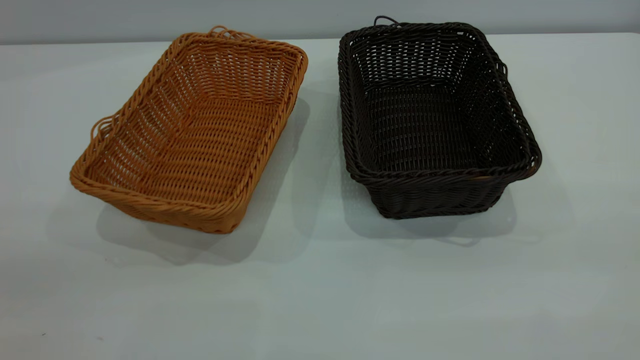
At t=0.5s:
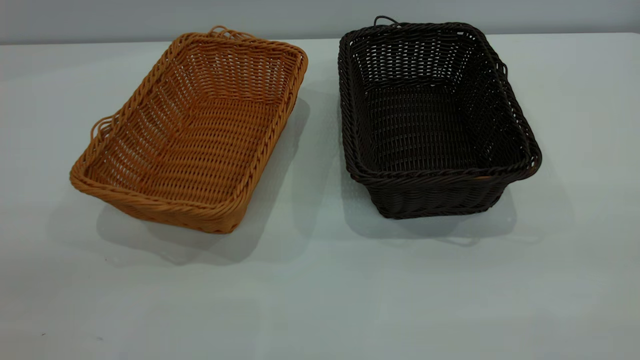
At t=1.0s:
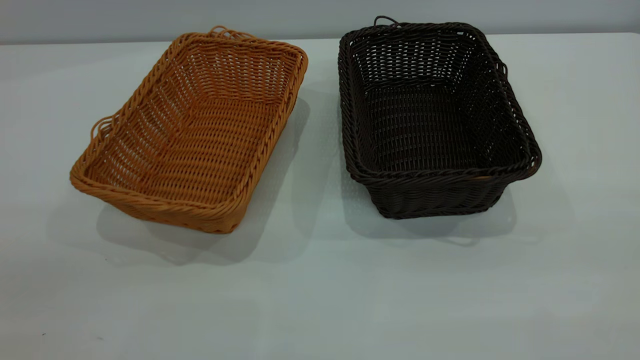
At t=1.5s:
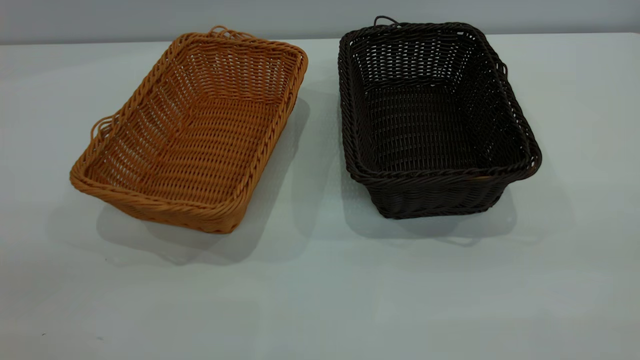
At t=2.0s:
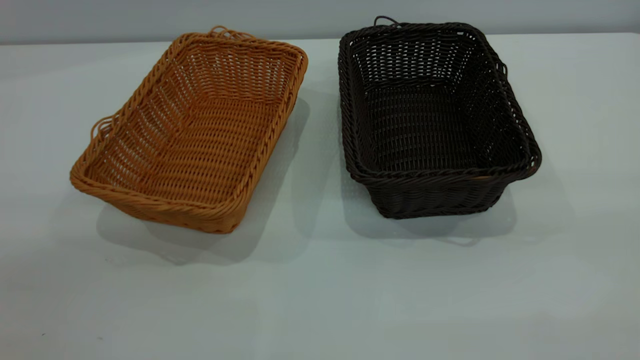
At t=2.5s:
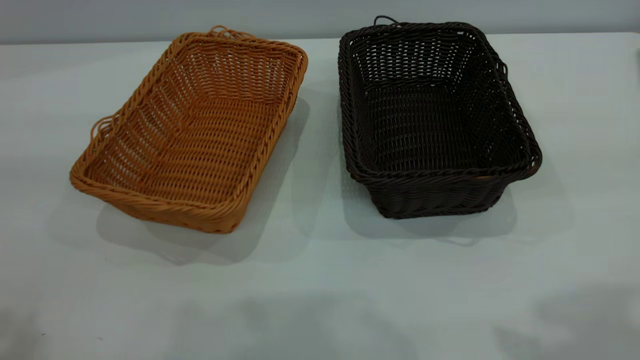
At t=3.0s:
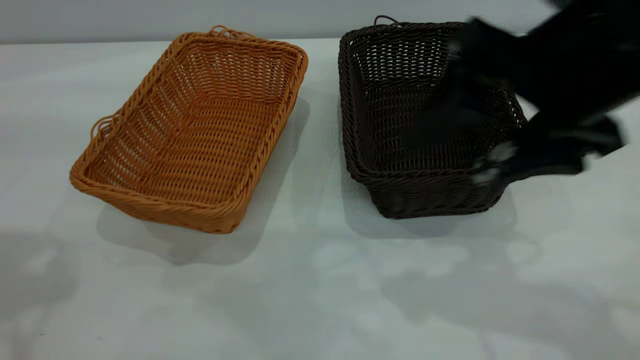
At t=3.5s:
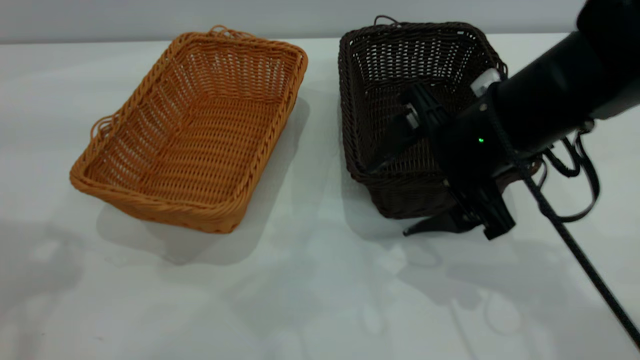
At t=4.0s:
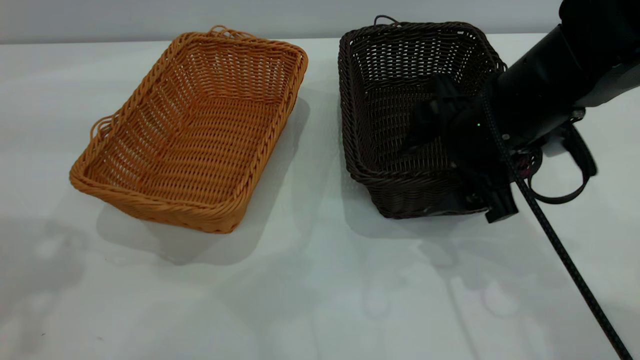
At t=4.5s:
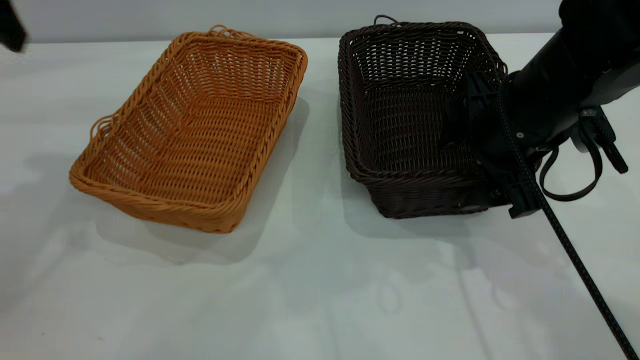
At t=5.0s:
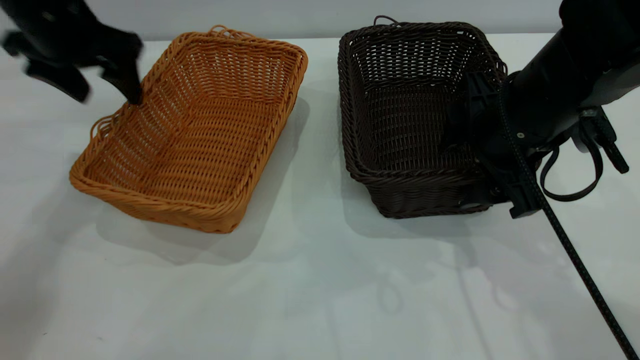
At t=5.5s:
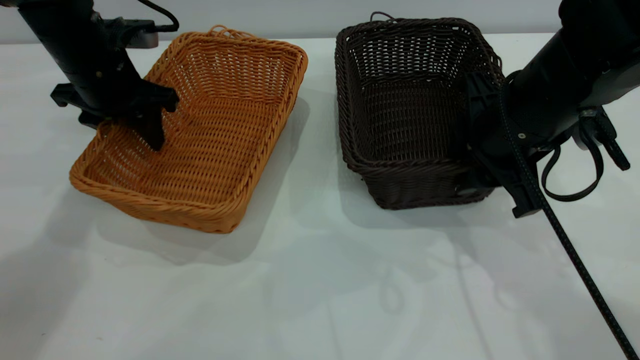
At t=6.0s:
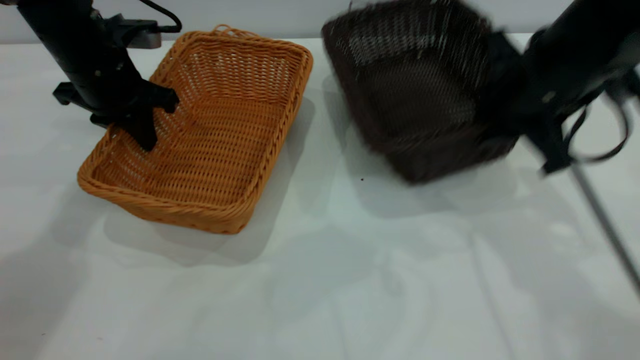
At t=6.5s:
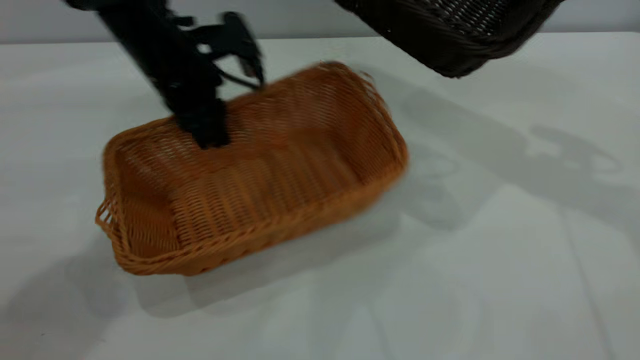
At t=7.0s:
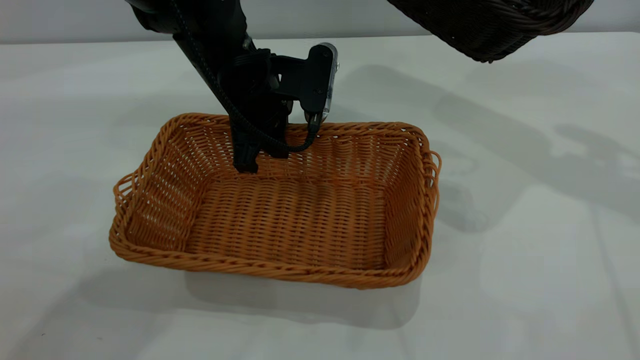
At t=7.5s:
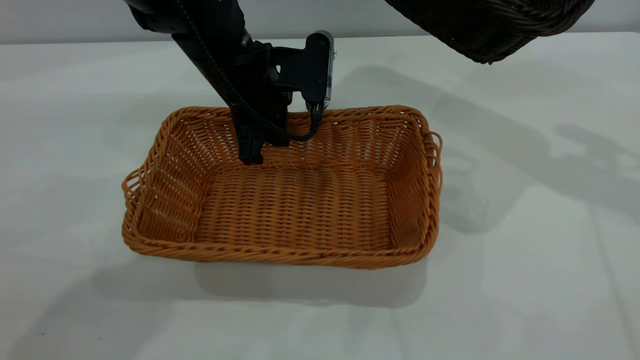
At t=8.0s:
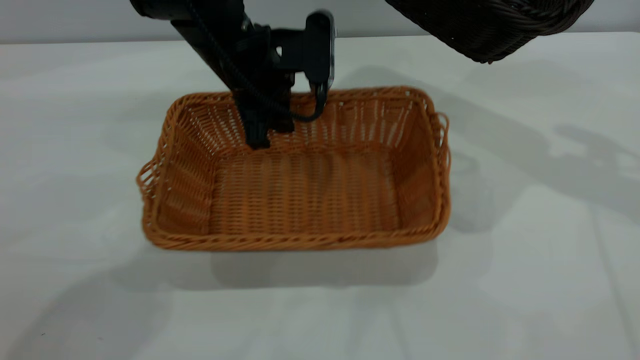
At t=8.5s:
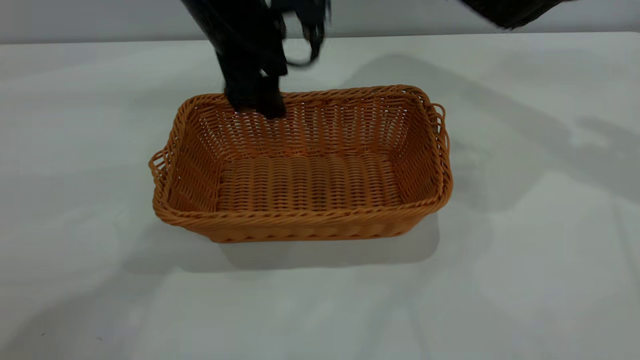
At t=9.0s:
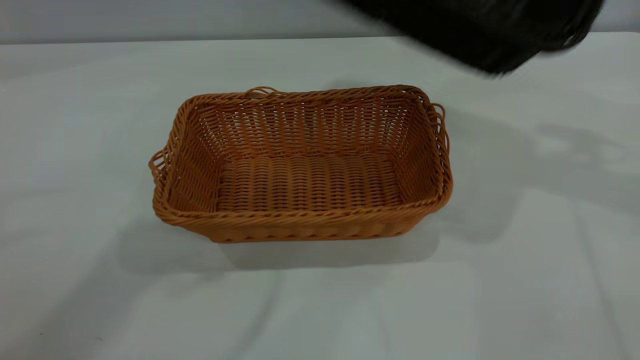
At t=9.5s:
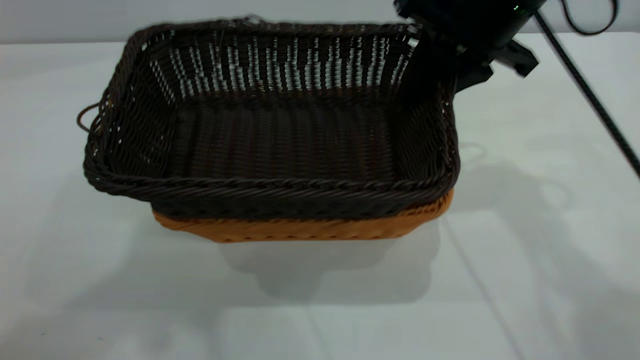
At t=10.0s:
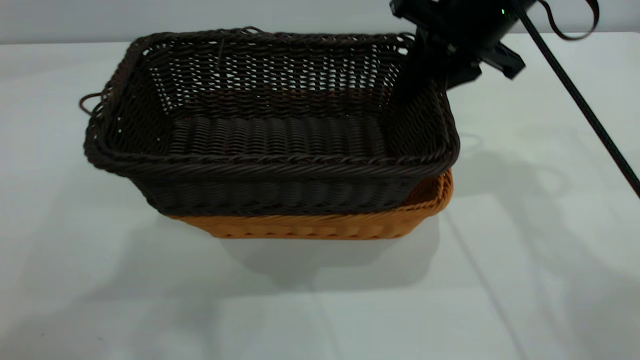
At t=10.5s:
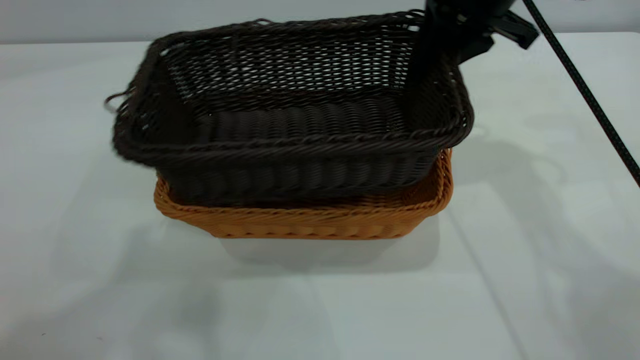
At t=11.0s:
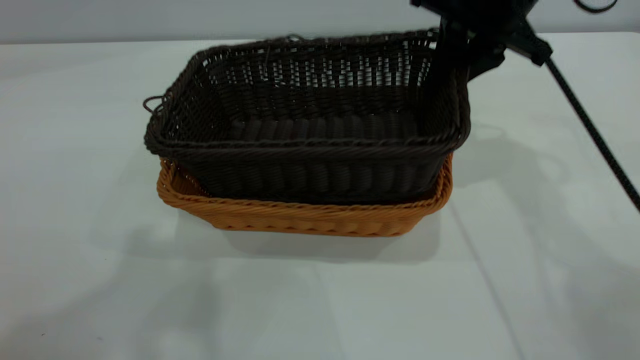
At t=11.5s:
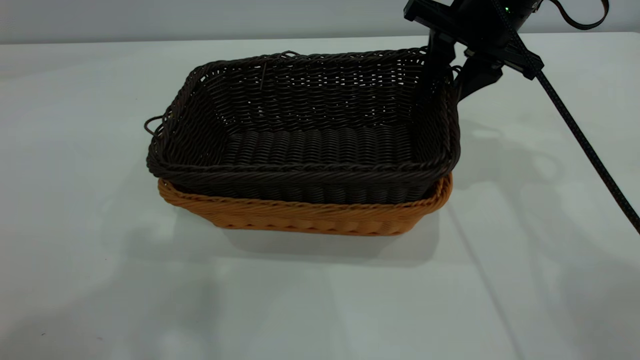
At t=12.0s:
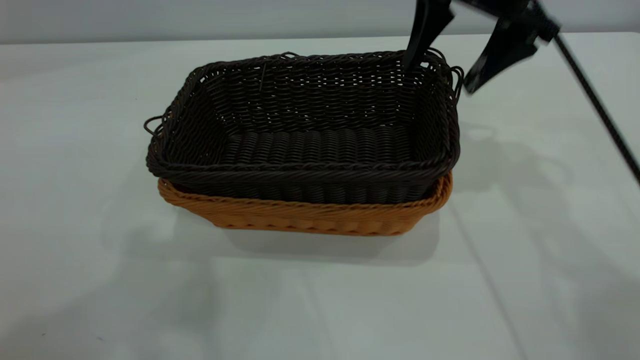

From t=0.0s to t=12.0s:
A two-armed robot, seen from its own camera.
Task of the whole recording: the left gripper grasp the brown basket and place it in the center of the table, the right gripper grasp the black basket and place it inside the brown one.
Step, from t=0.0s to t=6.0s: Pick up the light basket with the right gripper.
Step, from t=6.5s to t=8.0s: Place the light-colored basket in the center.
Step, from t=8.5s to t=12.0s: Place the dark basket on top of the light basket.
From t=2.0s to t=4.0s: The right gripper moves forward, downward and to the left, roughly 40 cm.
From t=4.0s to t=6.0s: The left gripper goes about 30 cm downward and forward, and closes its fingers. The right gripper shifts by roughly 5 cm, and closes up.
From t=6.0s to t=8.0s: The left gripper travels to the right by about 15 cm, and opens up, while the right gripper heads upward and to the right, covering approximately 15 cm.
From t=8.0s to t=10.0s: The right gripper travels to the left and downward by about 20 cm; the left gripper heads upward and backward, covering roughly 40 cm, and opens its fingers.
From t=10.0s to t=12.0s: The right gripper opens.

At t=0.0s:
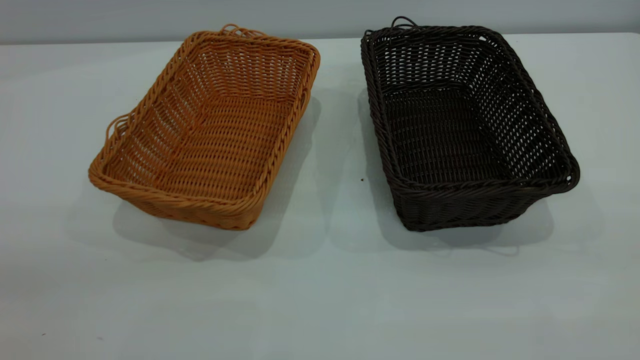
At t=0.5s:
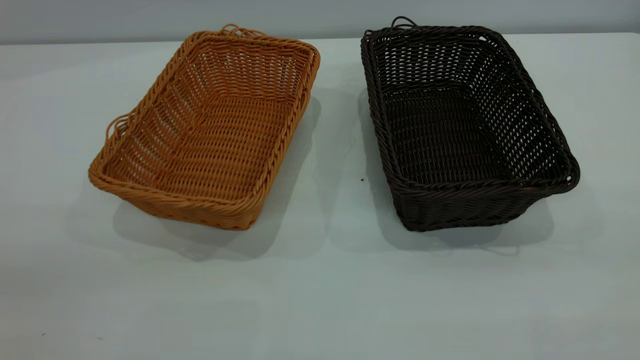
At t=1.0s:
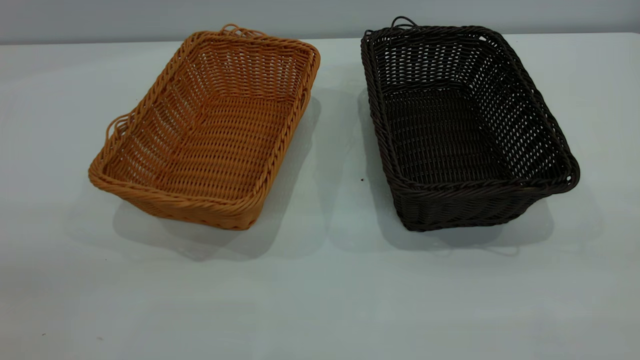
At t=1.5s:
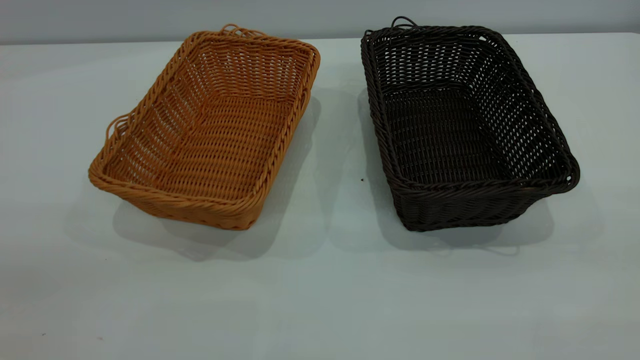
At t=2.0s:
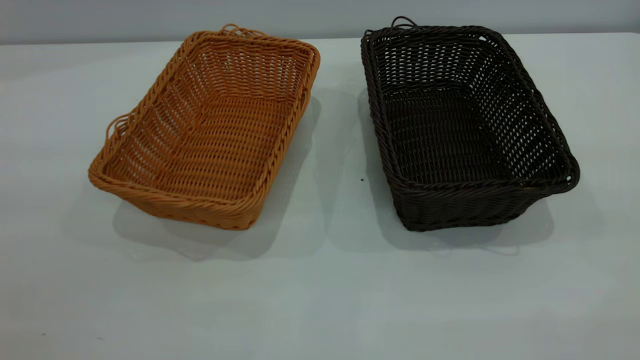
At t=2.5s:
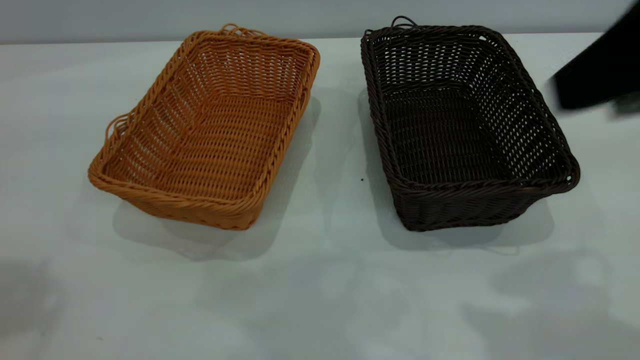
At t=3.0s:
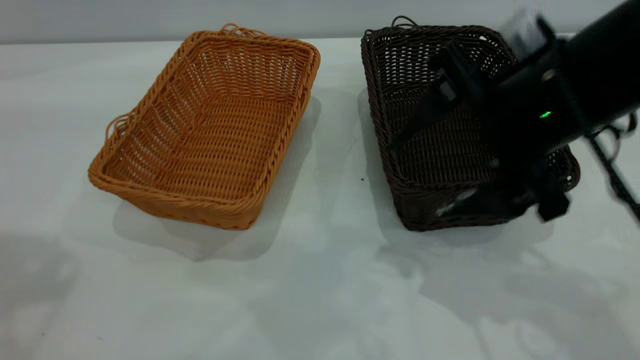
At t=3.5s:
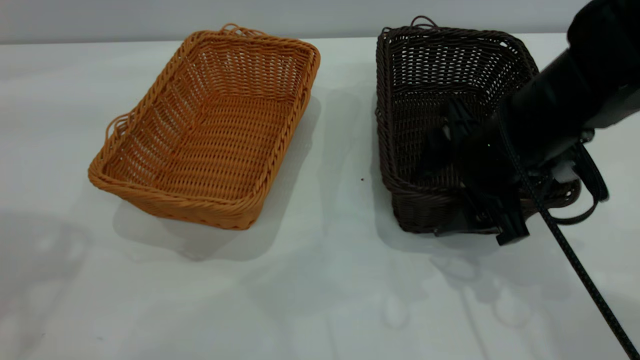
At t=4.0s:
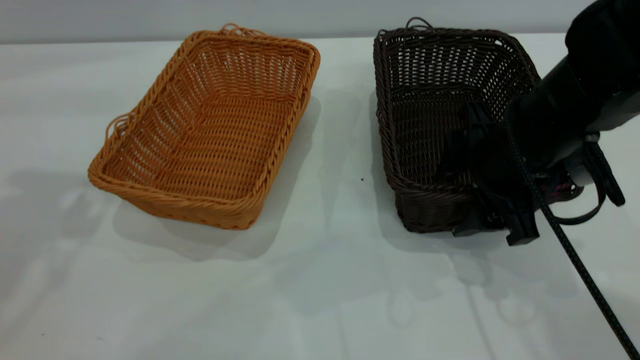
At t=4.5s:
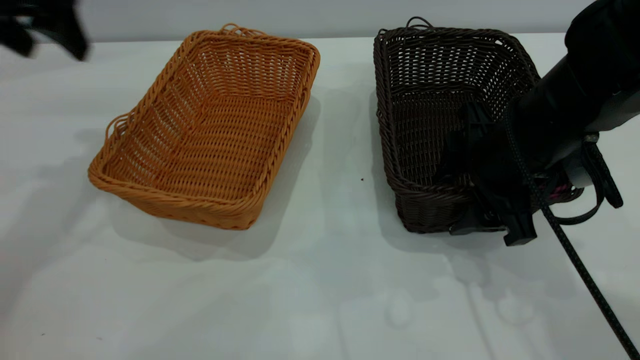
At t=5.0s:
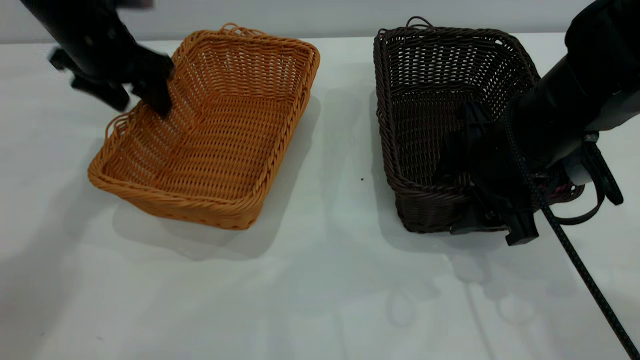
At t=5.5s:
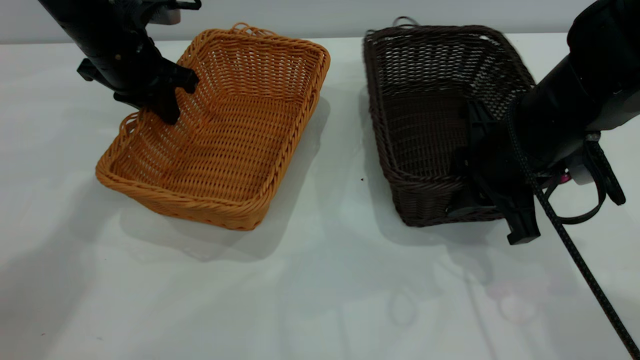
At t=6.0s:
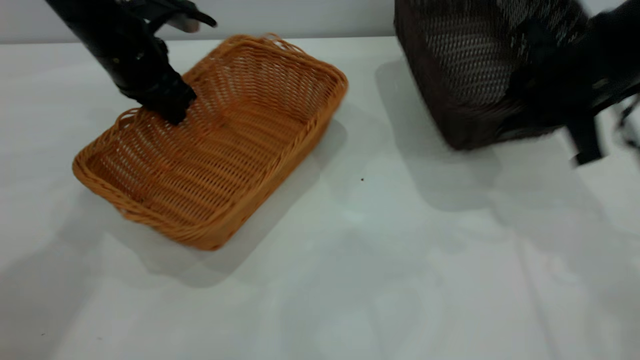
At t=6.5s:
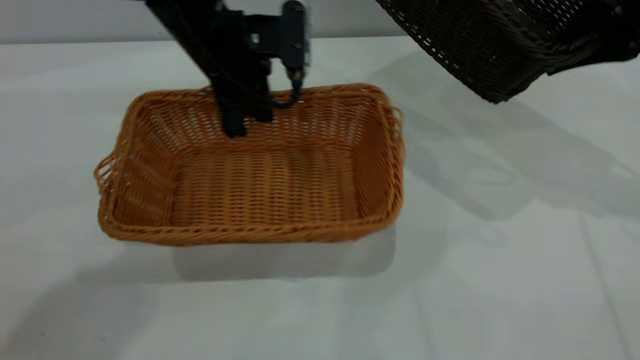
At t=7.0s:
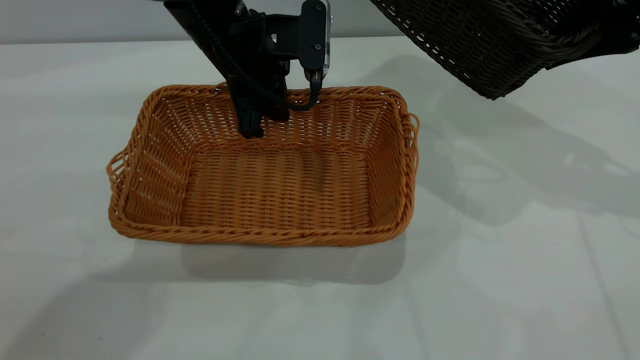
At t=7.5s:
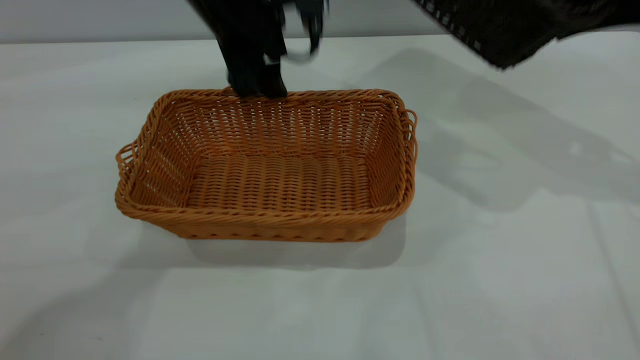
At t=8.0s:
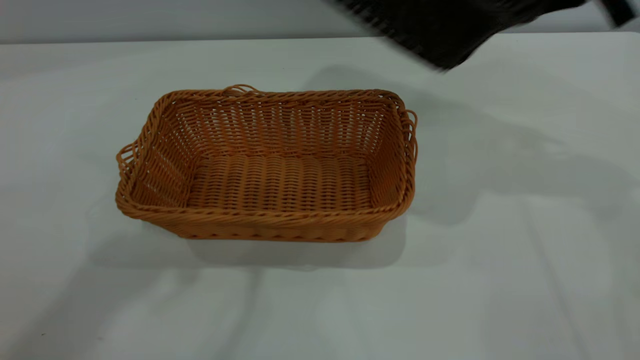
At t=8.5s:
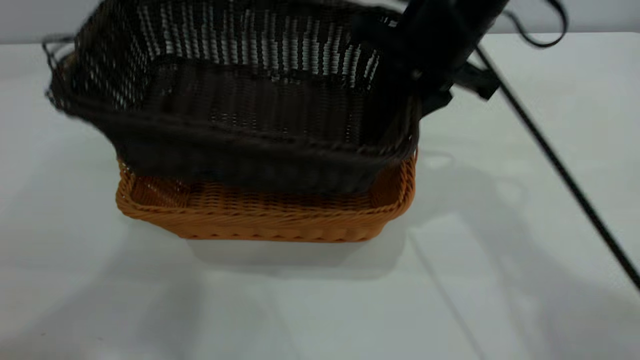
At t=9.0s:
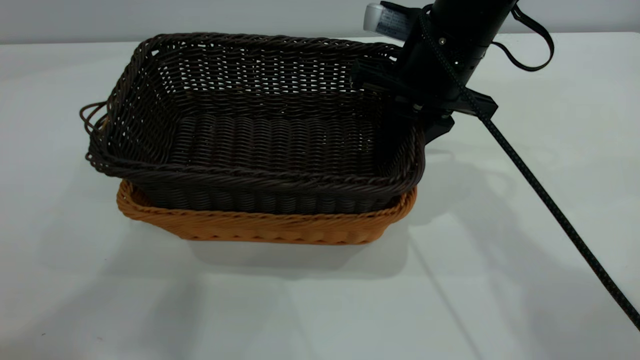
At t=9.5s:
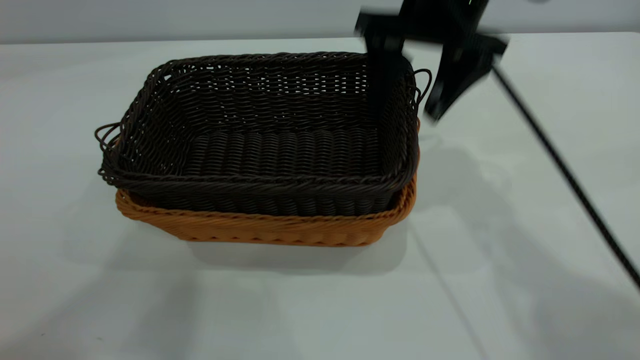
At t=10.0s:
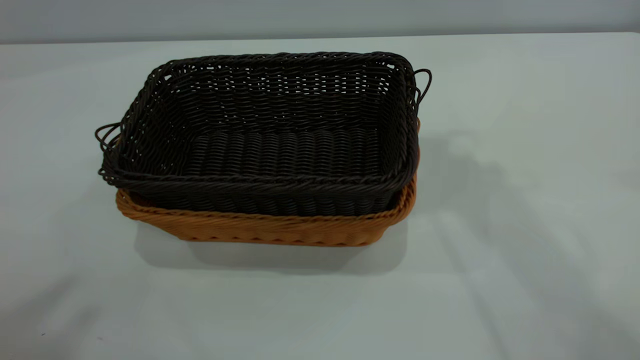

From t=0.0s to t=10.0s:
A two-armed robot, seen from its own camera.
Task of the whole recording: the left gripper grasp the brown basket and place it in the center of the table, the right gripper grasp the black basket and place it inside the brown one.
Step, from t=0.0s to t=5.5s: Pick up the light basket with the right gripper.
Step, from t=6.0s to t=7.5s: Place the light-colored basket in the center.
Step, from t=8.0s to t=9.5s: Place the dark basket on top of the light basket.
From t=2.0s to t=4.0s: The right gripper goes approximately 35 cm downward and forward. Meanwhile the left gripper goes some 25 cm forward.
From t=4.0s to t=6.0s: The right gripper goes some 10 cm to the right and upward, and closes; the left gripper moves downward, forward and to the right, roughly 25 cm, and closes.
From t=6.0s to t=8.0s: The right gripper shifts some 10 cm upward. Meanwhile the left gripper travels upward and backward by roughly 35 cm, and opens.
From t=8.0s to t=10.0s: The left gripper is displaced backward, upward and to the left by approximately 25 cm; the right gripper travels upward by some 20 cm, and opens up.
